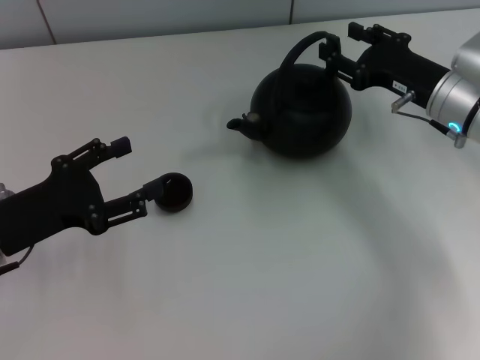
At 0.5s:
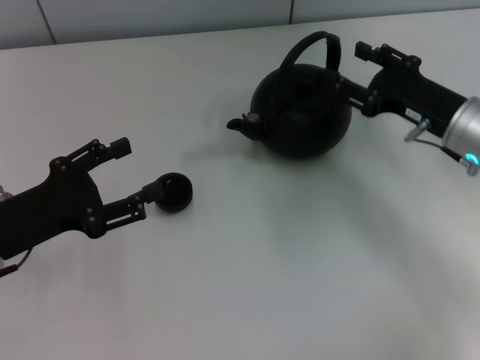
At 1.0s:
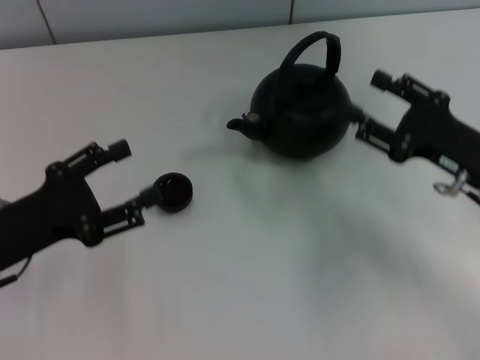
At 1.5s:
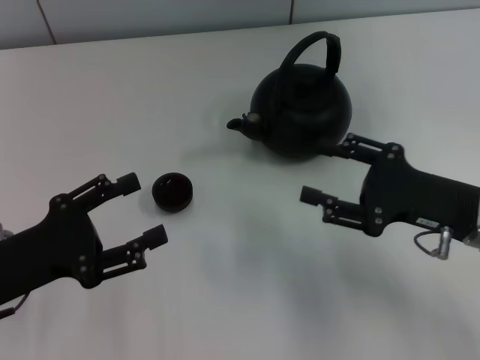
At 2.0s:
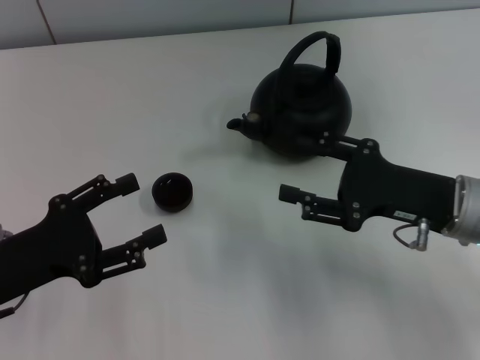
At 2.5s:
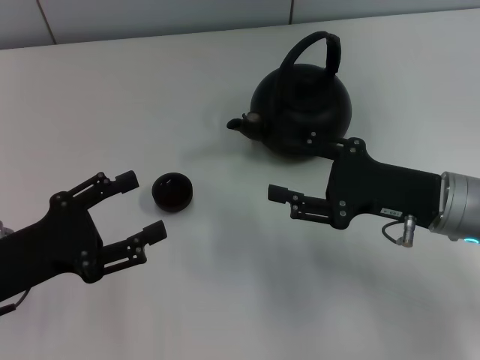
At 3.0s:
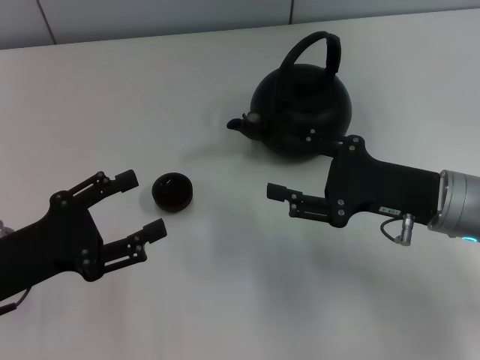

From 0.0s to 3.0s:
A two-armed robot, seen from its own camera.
Task of the whole recording: Grasp the handle of the teapot with one hand and pour tea into the teacup.
From 0.0s to 1.5s: The right gripper travels backward by some 10 cm.
From 1.5s to 3.0s: The grippers stay close to where they were, moving slightly.

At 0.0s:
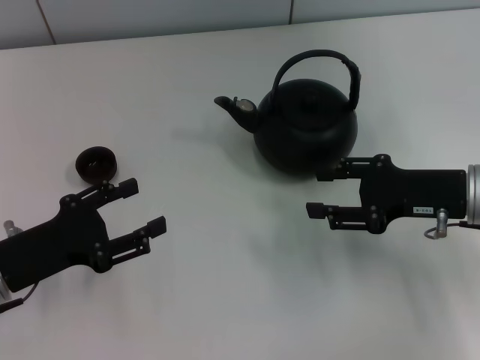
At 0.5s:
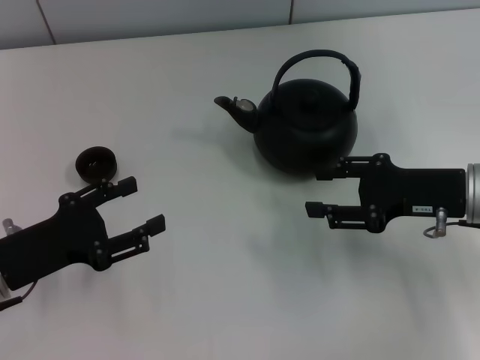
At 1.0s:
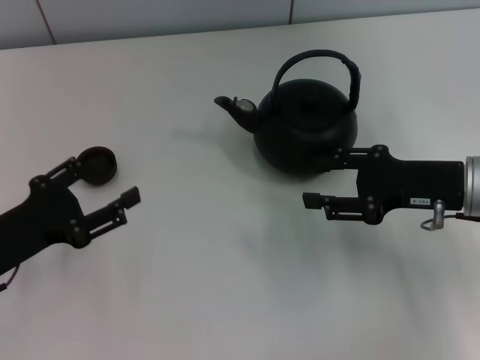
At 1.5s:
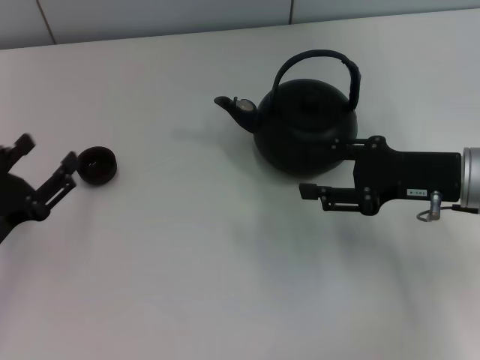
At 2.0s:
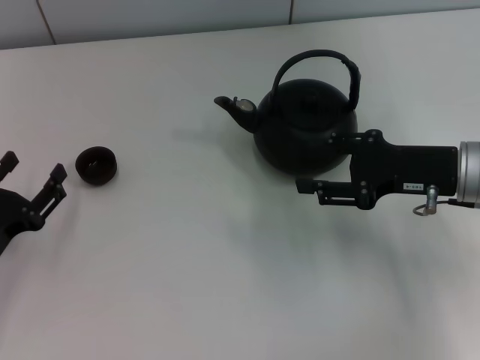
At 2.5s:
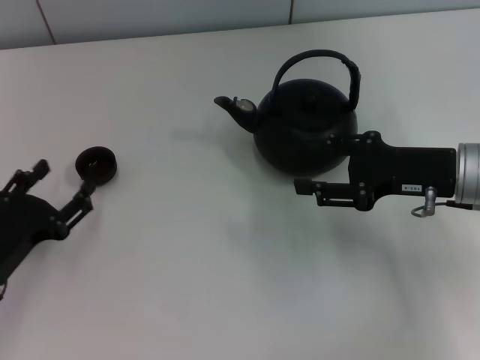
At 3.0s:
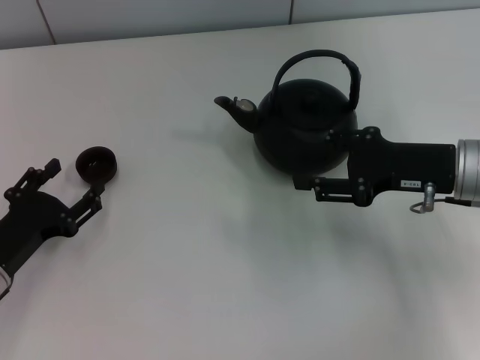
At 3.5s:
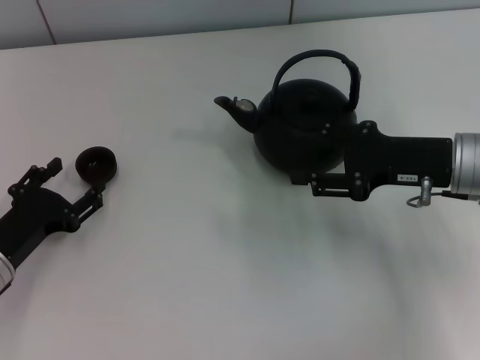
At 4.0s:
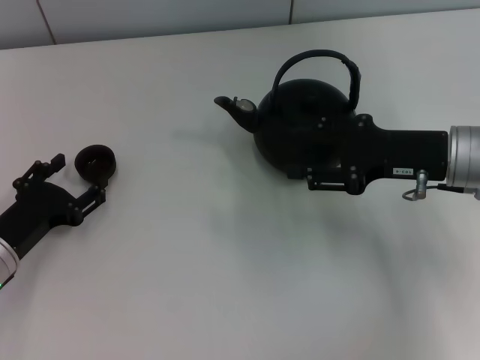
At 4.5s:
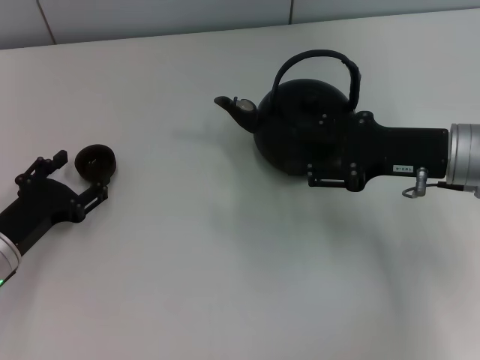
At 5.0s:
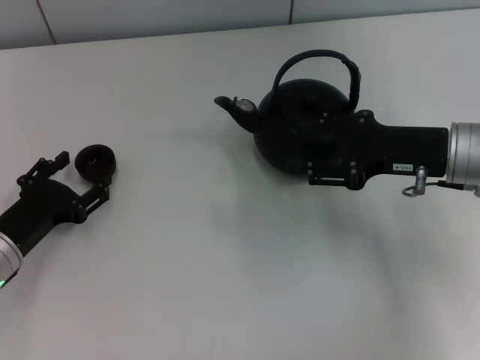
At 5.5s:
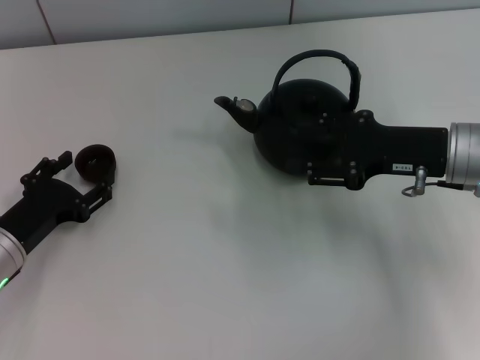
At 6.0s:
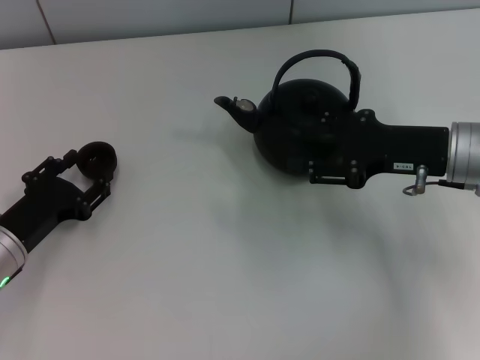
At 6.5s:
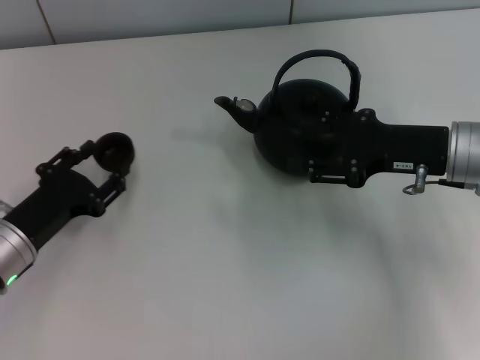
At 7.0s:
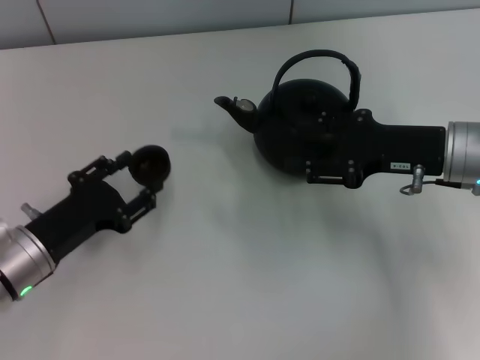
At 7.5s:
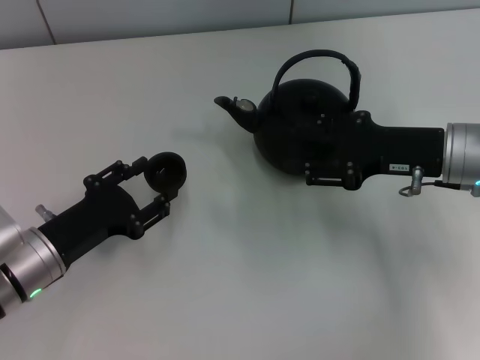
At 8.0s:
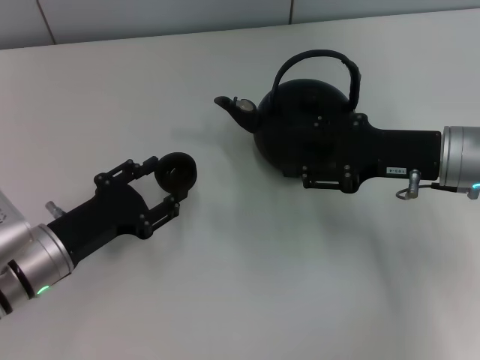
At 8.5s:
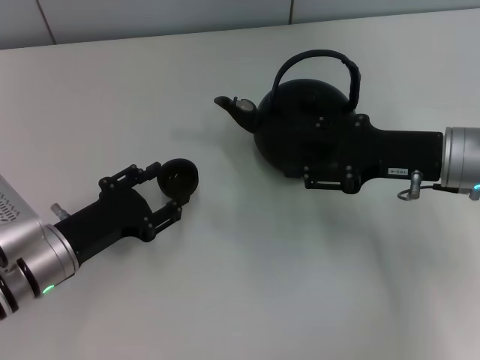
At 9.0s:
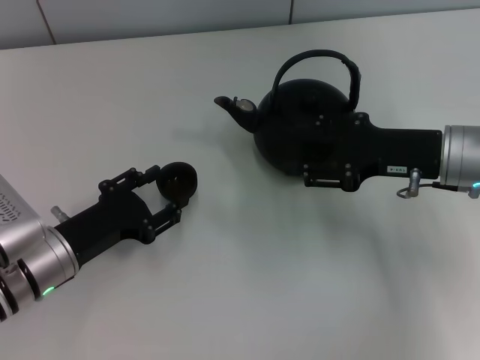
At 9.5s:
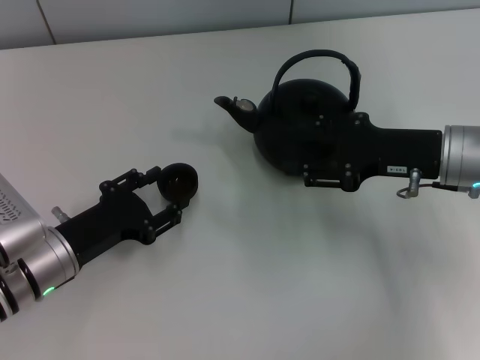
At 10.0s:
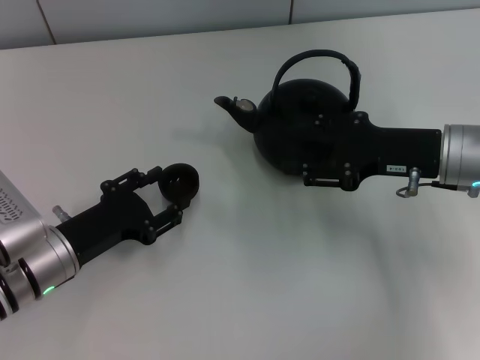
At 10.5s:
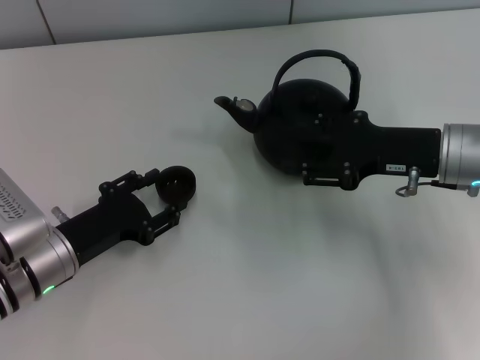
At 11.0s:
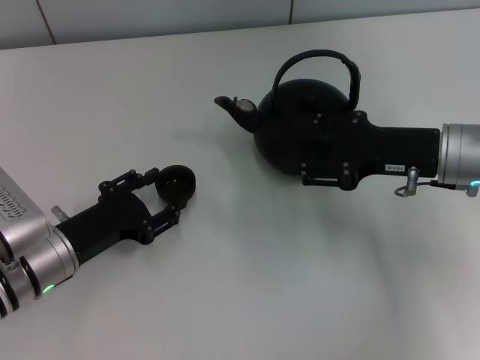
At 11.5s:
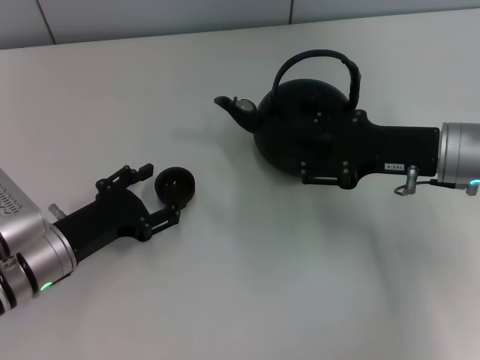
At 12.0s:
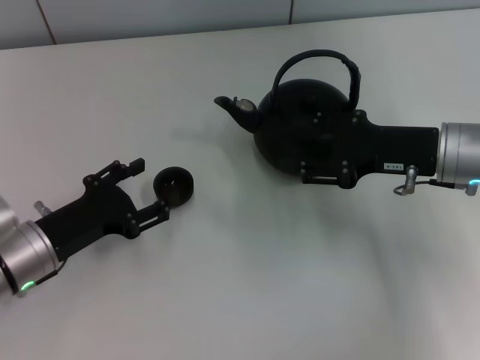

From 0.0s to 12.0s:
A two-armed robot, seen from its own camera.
Task of the whole recording: Grasp the handle of the teapot with one hand and pour tea into the teacup.
Step, from 0.0s to 7.5s: Pick up the teacup with the left gripper.
From 2.0s to 4.0s: The grippers move only a little.
From 4.0s to 6.0s: The left gripper closes.
From 8.0s to 10.0s: The two grippers keep their place.
From 10.0s to 12.0s: The left gripper opens.

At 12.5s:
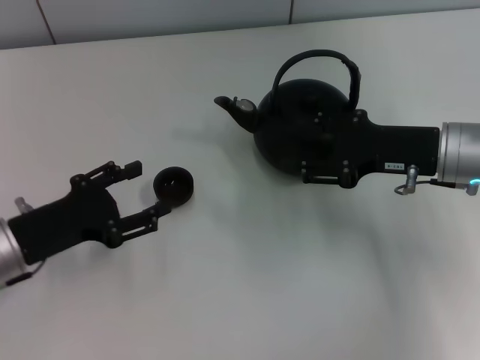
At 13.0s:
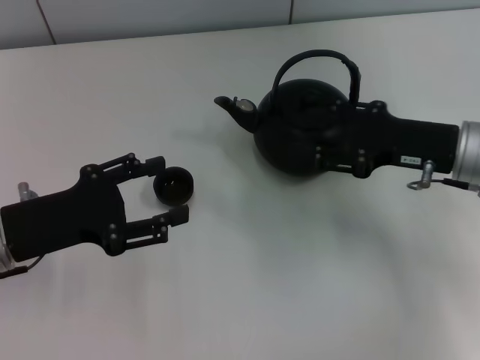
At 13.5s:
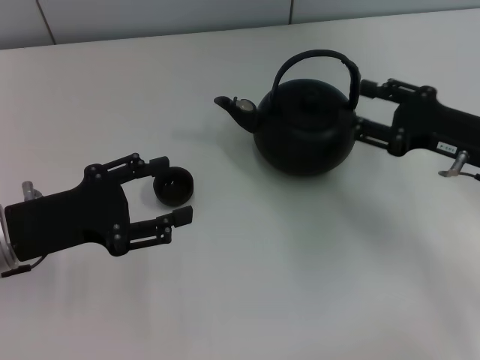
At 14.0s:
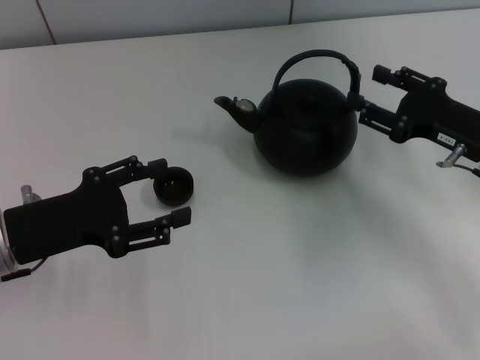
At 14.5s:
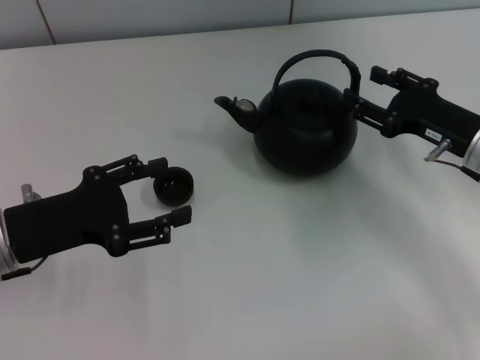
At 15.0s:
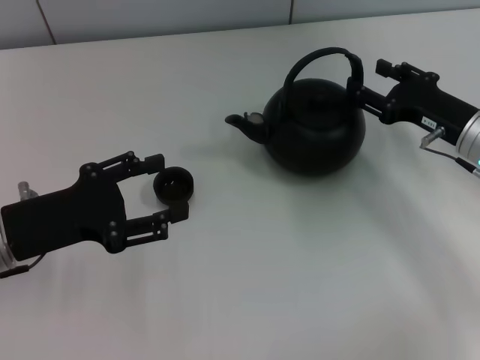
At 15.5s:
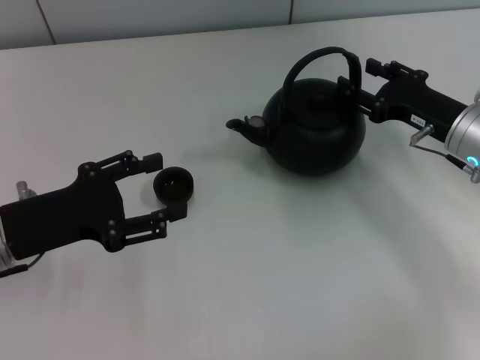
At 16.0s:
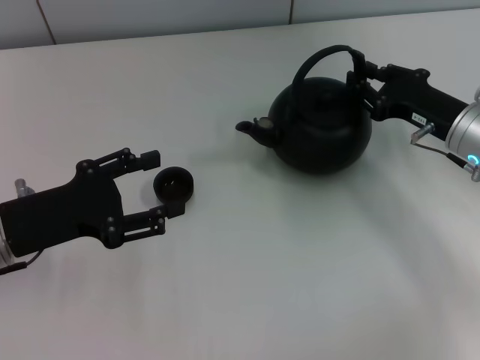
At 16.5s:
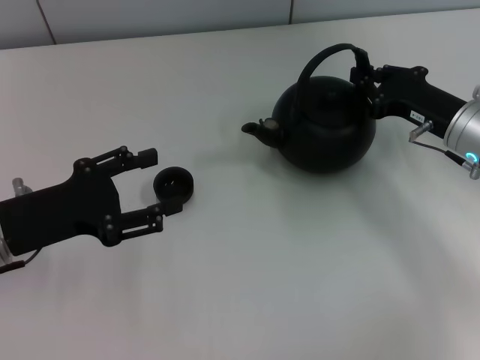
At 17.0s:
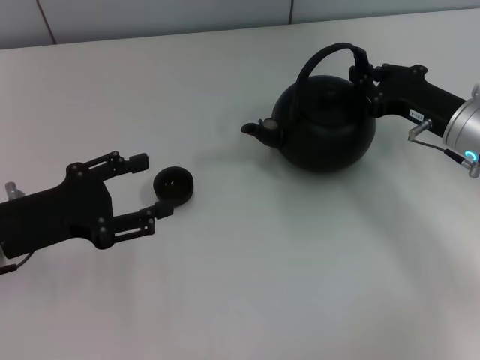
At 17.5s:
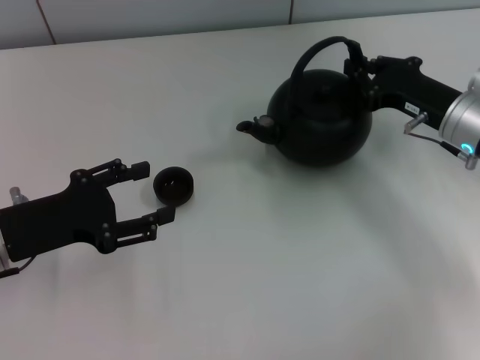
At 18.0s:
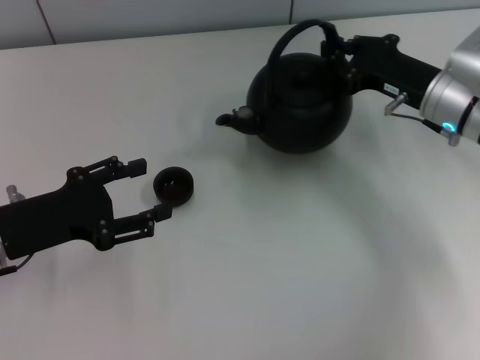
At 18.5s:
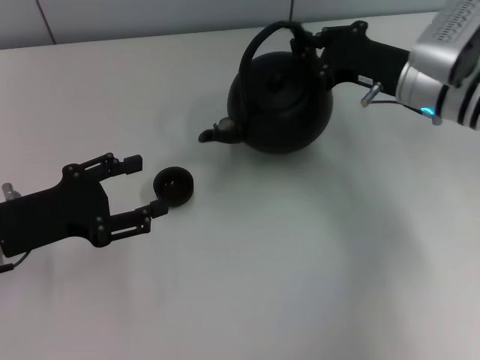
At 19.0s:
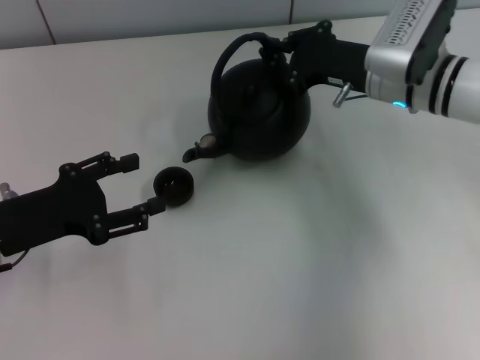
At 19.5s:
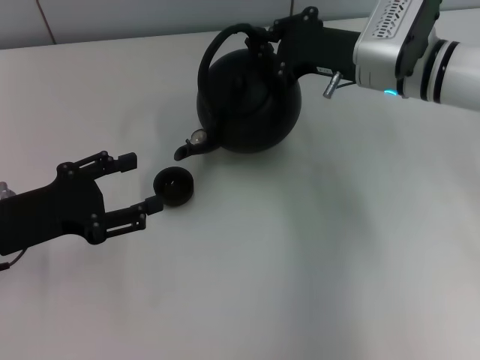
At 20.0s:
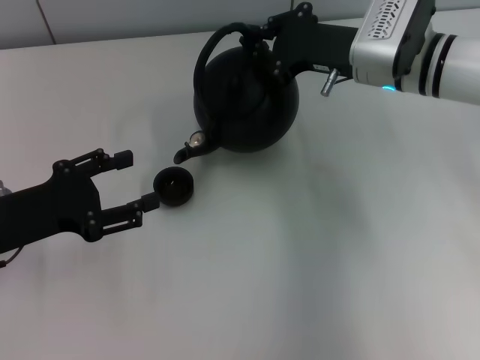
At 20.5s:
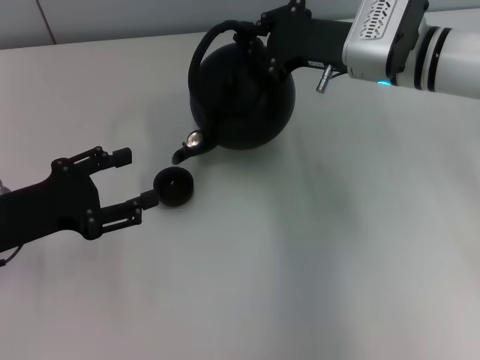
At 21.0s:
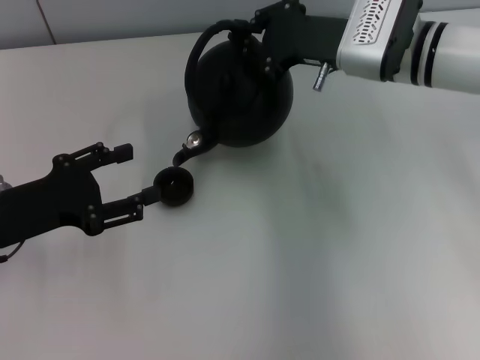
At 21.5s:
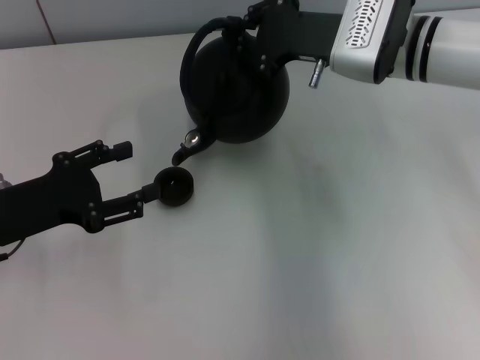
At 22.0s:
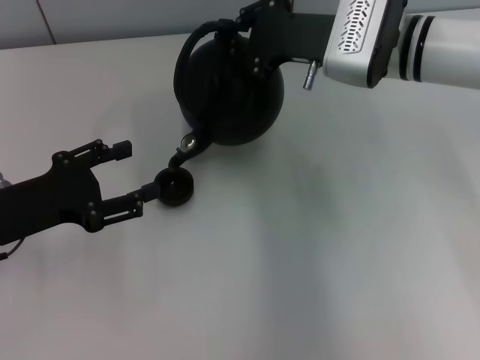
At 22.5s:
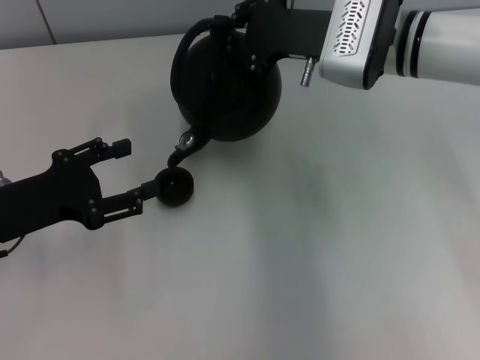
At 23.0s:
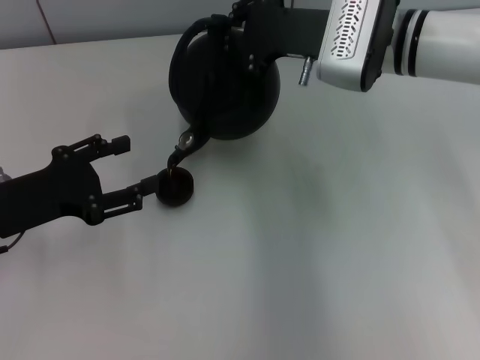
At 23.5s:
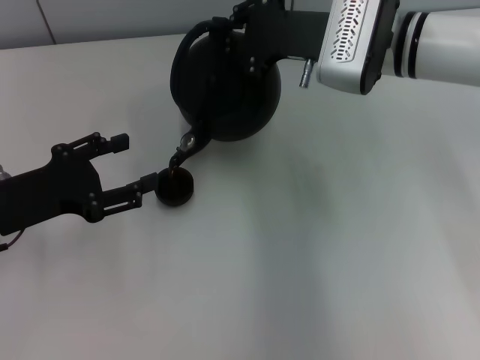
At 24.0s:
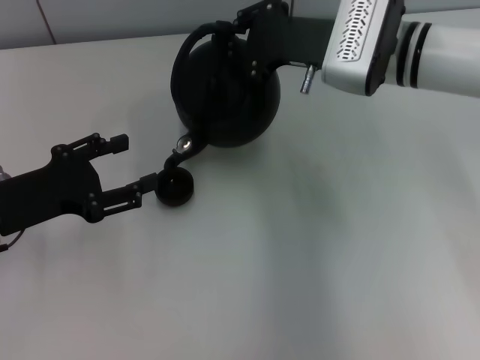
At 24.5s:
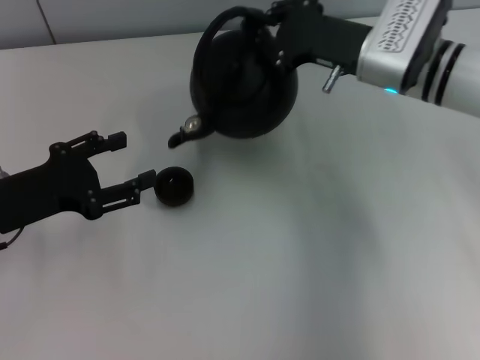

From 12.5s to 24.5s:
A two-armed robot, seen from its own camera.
Task of the whole recording: Grasp the handle of the teapot with one hand and pour tea into the teacup.
Step, from 12.5s to 18.0s: Pick up the teapot with the right gripper.
From 12.5s to 14.5s: The right gripper shifts by about 5 cm.
From 14.5s to 16.5s: The right gripper closes up.
From 16.5s to 18.5s: The right gripper ends up roughly 10 cm from where it was.
From 18.5s to 20.5s: The right gripper changes place by approximately 5 cm.
From 20.5s to 24.5s: There are only small adjustments of the grippers.
